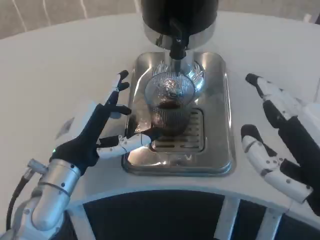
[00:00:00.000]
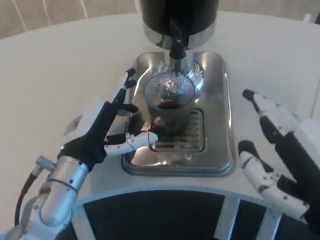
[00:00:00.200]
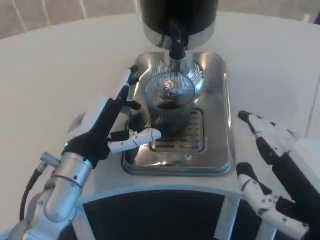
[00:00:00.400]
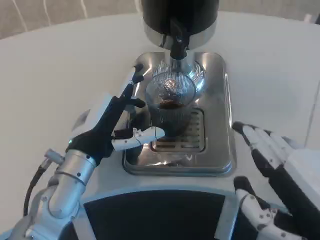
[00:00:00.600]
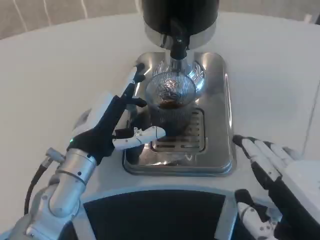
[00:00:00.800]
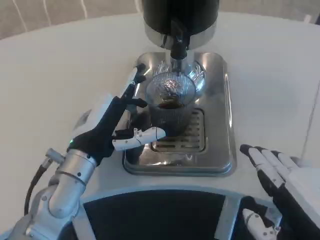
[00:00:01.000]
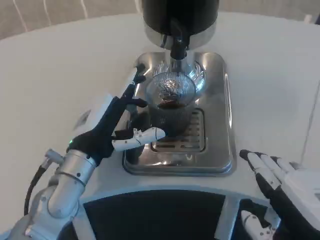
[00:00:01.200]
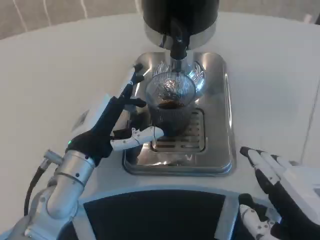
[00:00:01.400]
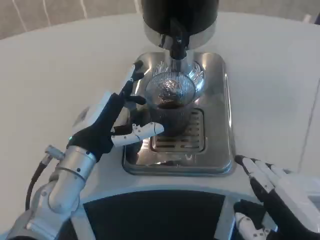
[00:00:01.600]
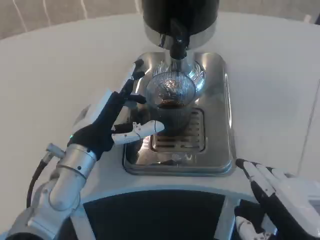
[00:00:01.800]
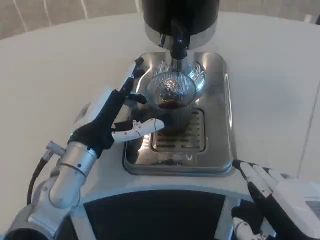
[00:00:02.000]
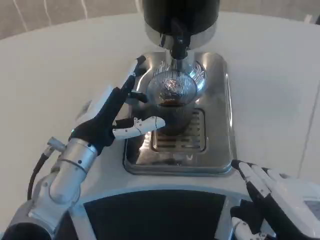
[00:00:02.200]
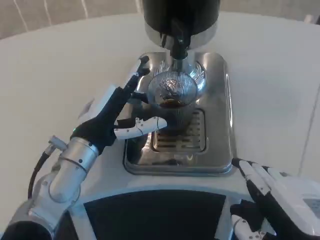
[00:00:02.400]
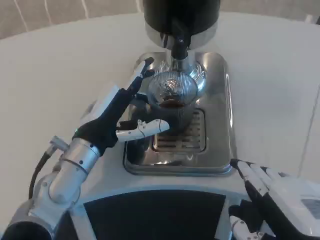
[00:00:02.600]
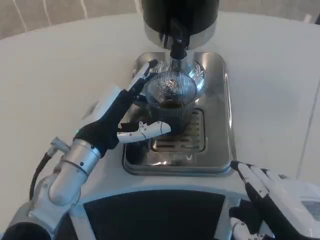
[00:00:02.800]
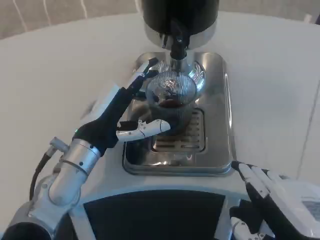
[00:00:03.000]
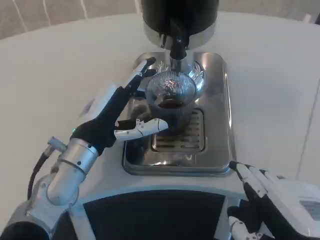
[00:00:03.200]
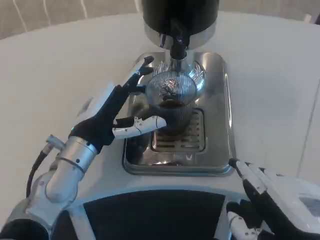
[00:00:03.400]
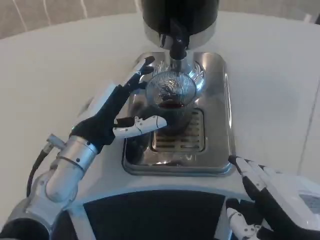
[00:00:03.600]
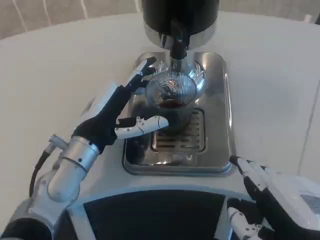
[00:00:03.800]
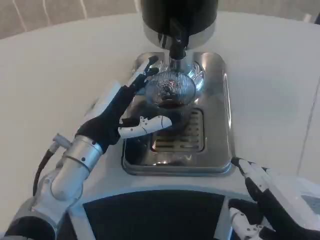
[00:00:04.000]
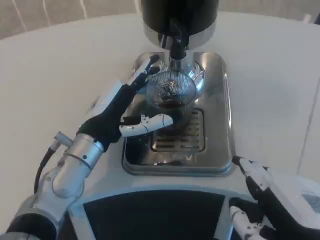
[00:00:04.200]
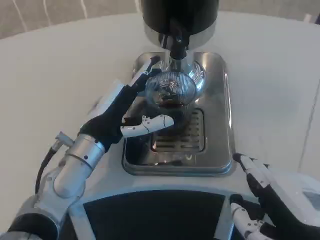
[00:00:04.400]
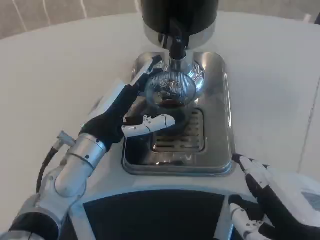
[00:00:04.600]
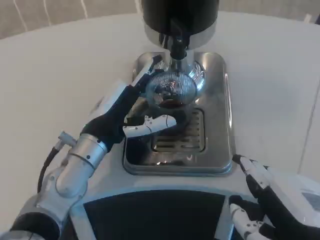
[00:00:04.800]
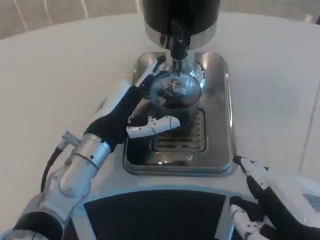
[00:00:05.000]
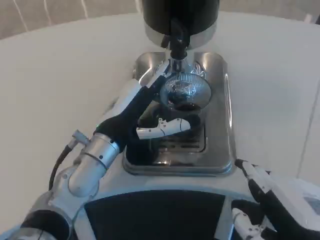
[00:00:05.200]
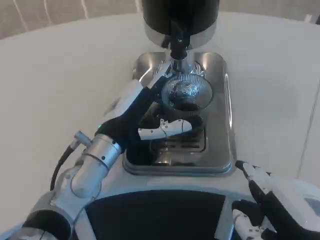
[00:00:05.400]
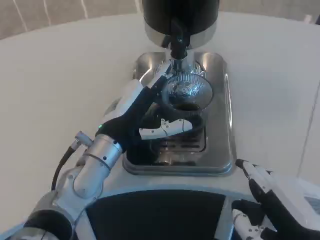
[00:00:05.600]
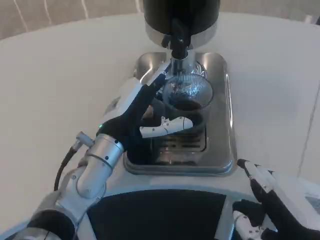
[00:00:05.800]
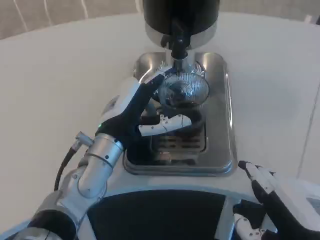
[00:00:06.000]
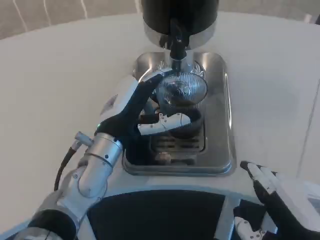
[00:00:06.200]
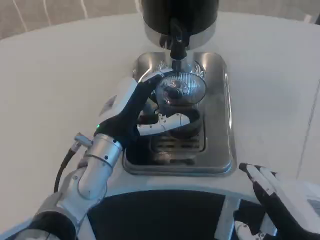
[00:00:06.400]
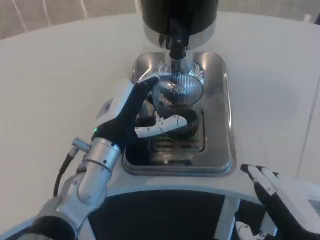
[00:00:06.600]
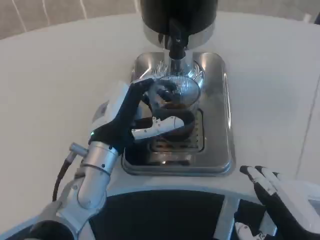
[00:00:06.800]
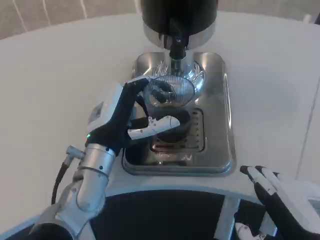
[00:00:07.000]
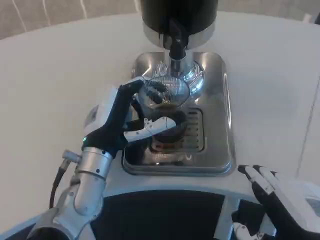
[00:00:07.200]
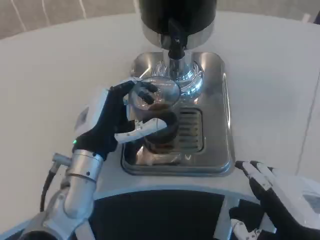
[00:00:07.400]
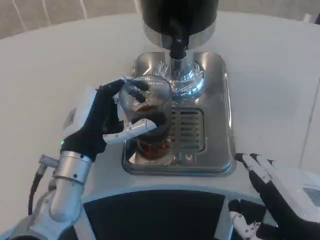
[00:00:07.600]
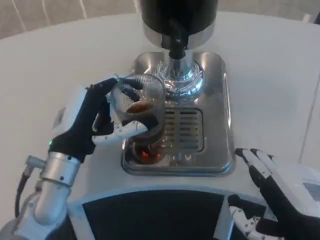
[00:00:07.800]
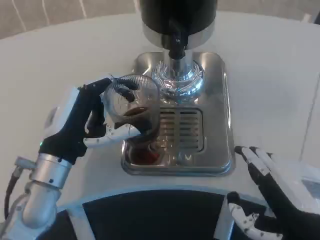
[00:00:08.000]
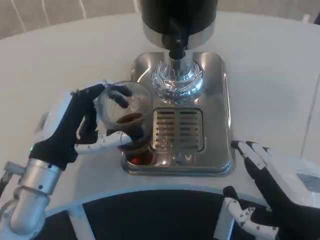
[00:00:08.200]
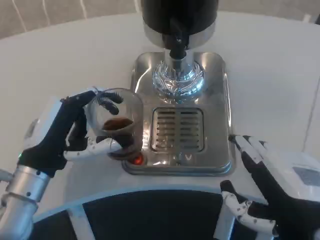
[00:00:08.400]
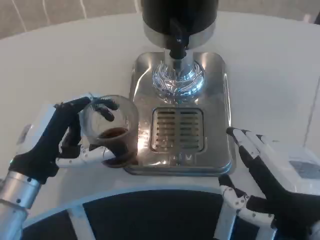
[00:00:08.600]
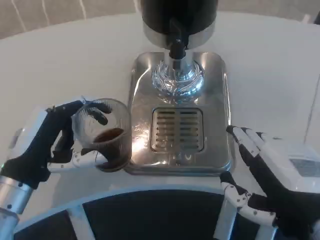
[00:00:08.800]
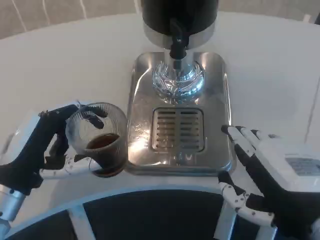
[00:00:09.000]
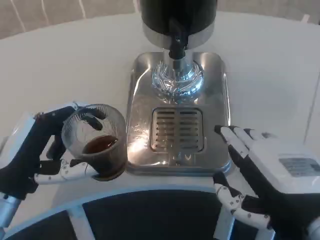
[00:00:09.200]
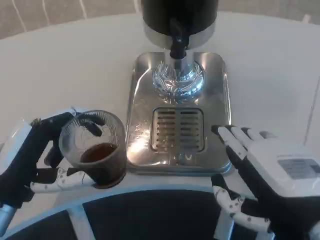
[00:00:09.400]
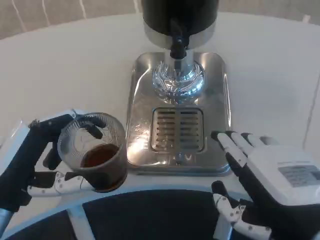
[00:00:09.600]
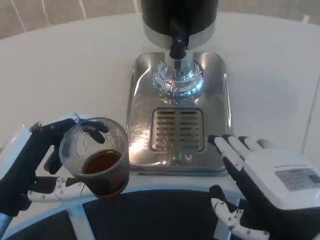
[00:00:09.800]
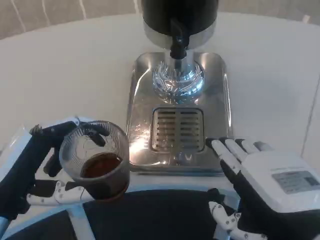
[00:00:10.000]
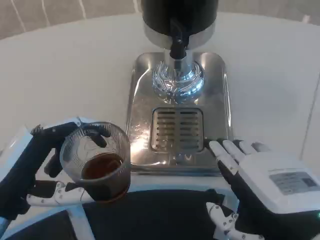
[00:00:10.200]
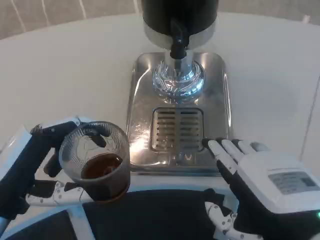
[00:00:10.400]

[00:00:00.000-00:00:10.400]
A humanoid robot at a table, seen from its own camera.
Task of the whole recording: Grasp the cup under the faucet to collect the drink, then remove the cup.
00:00:00.000 to 00:00:01.400: The hands stay close to where they were, moving slightly.
00:00:01.400 to 00:00:03.000: The hands make only small movements.
00:00:03.000 to 00:00:04.400: Neither hand changes place.
00:00:04.400 to 00:00:07.400: The hands stay close to where they were, moving slightly.
00:00:07.400 to 00:00:09.000: The left hand moves to the left and backward, approximately 10 cm.
00:00:09.000 to 00:00:10.400: The hands move only a little.

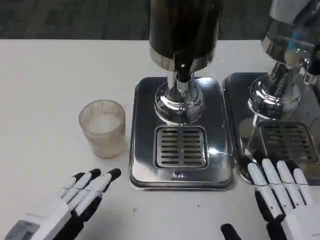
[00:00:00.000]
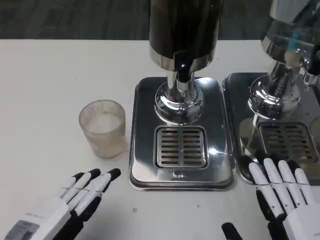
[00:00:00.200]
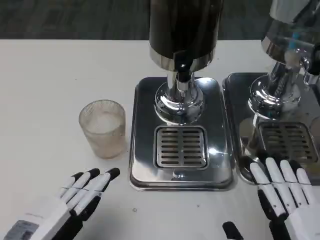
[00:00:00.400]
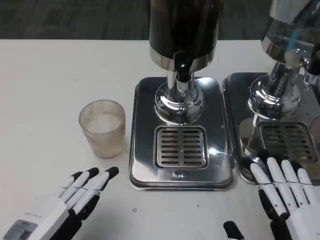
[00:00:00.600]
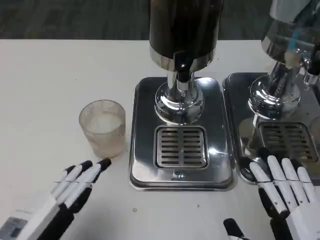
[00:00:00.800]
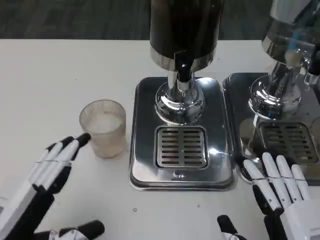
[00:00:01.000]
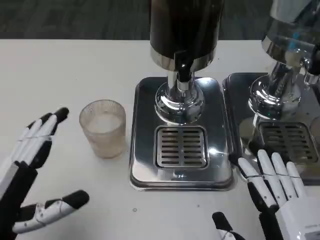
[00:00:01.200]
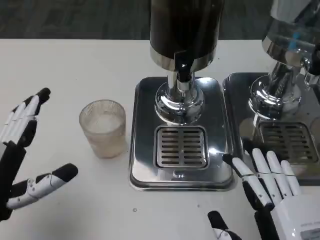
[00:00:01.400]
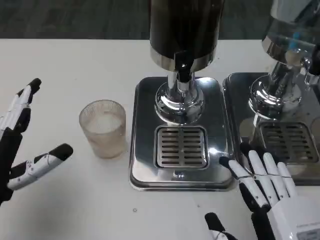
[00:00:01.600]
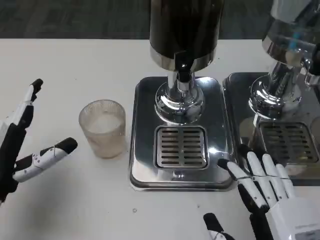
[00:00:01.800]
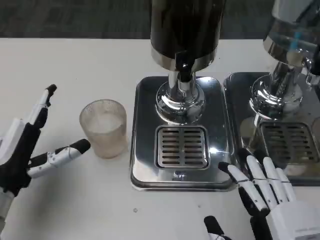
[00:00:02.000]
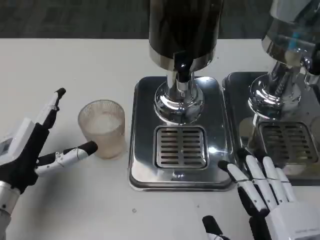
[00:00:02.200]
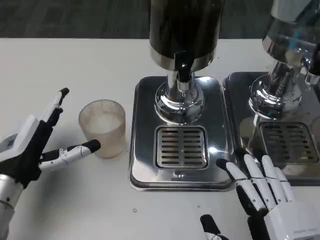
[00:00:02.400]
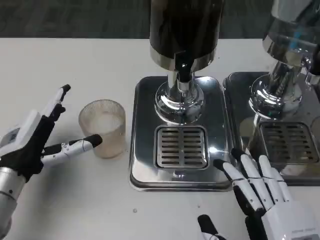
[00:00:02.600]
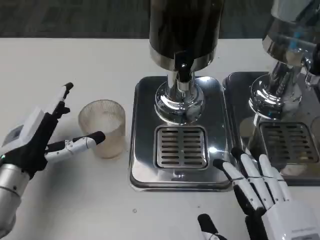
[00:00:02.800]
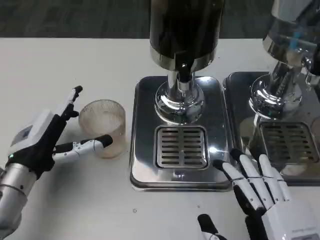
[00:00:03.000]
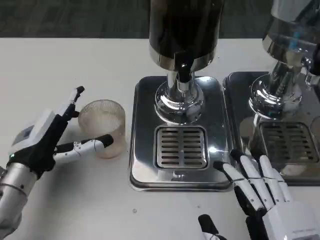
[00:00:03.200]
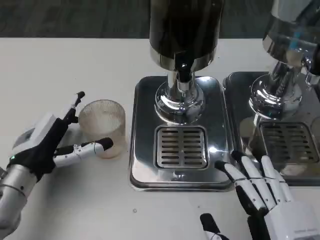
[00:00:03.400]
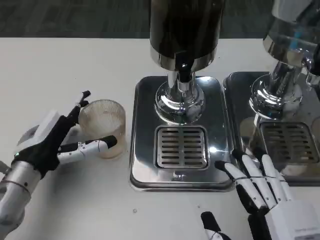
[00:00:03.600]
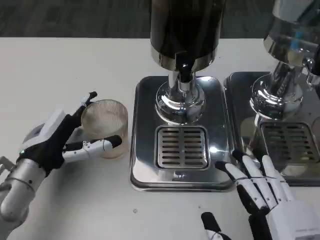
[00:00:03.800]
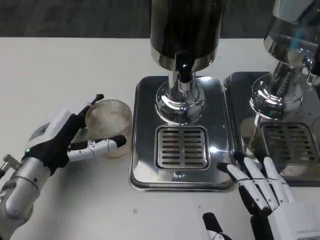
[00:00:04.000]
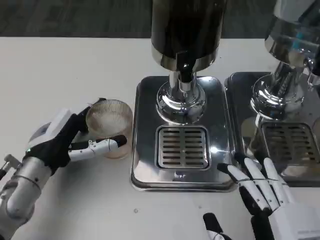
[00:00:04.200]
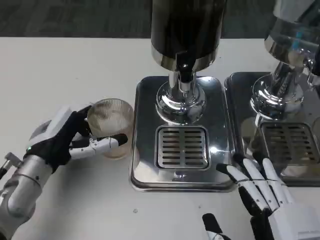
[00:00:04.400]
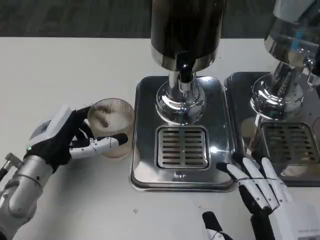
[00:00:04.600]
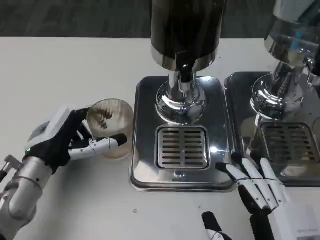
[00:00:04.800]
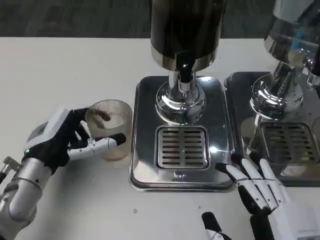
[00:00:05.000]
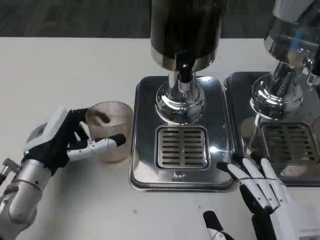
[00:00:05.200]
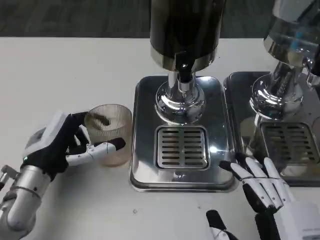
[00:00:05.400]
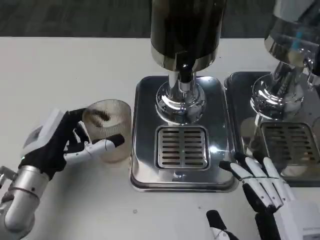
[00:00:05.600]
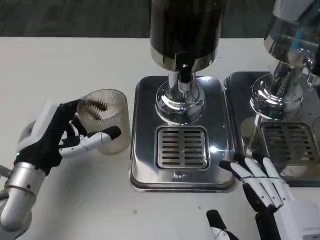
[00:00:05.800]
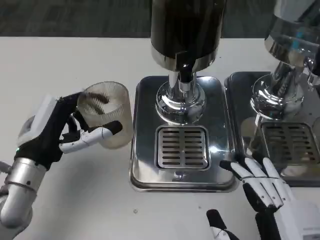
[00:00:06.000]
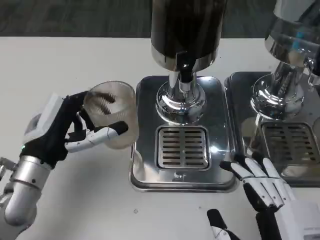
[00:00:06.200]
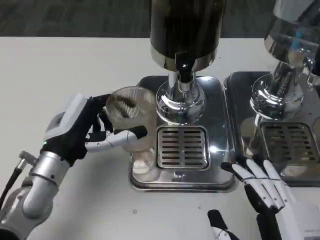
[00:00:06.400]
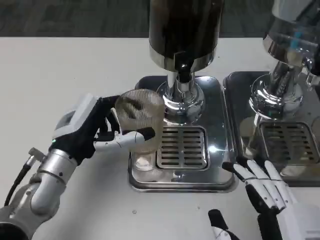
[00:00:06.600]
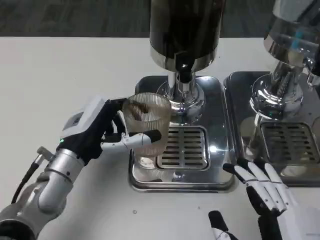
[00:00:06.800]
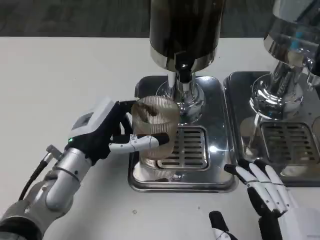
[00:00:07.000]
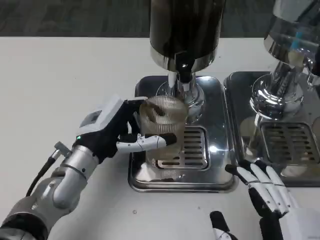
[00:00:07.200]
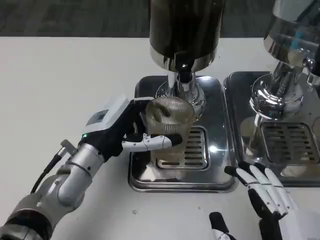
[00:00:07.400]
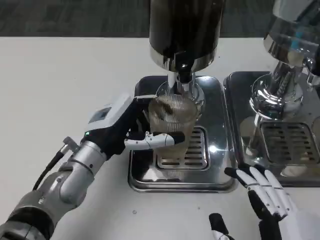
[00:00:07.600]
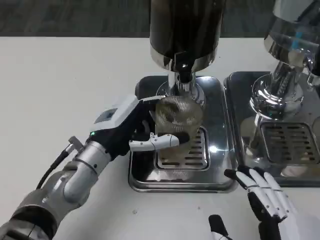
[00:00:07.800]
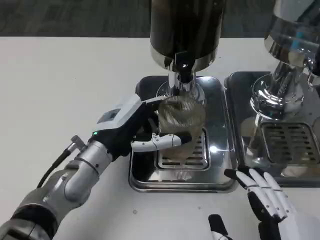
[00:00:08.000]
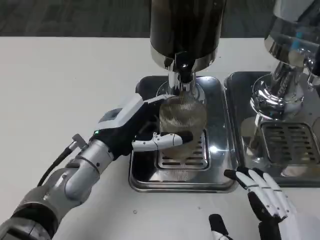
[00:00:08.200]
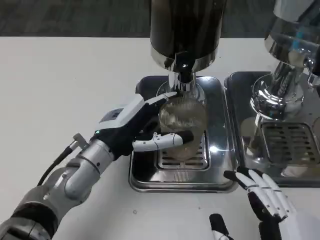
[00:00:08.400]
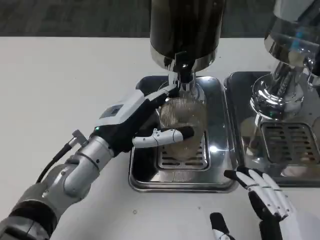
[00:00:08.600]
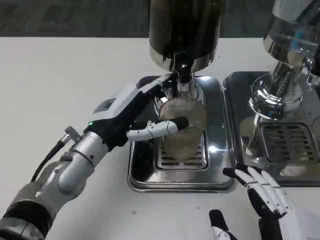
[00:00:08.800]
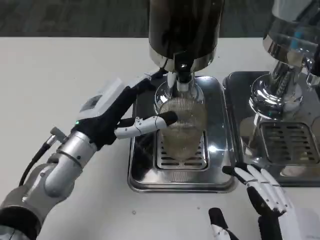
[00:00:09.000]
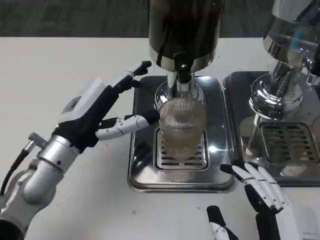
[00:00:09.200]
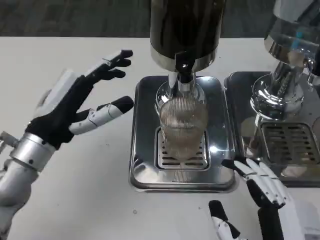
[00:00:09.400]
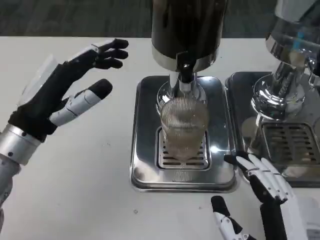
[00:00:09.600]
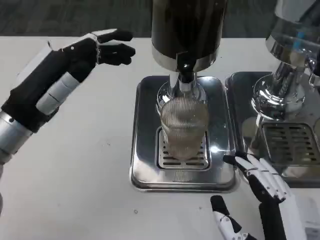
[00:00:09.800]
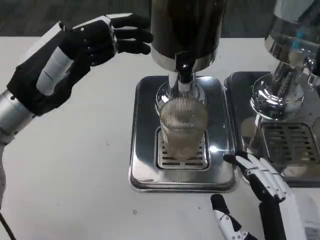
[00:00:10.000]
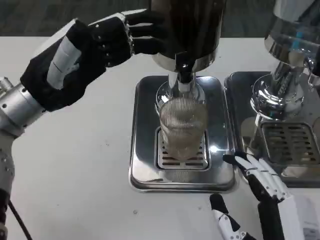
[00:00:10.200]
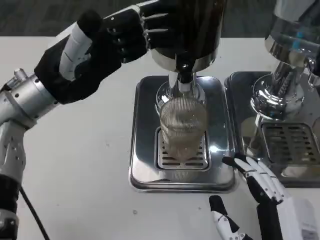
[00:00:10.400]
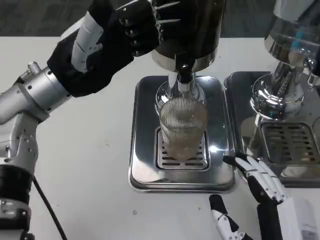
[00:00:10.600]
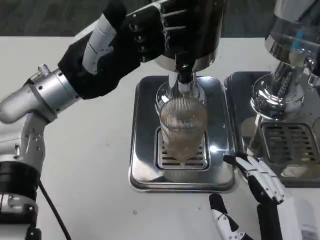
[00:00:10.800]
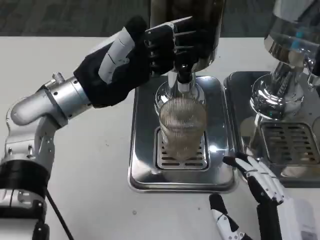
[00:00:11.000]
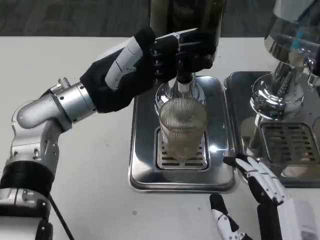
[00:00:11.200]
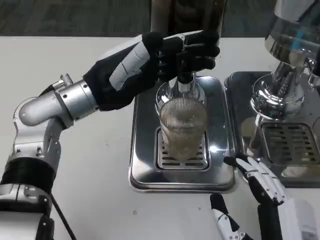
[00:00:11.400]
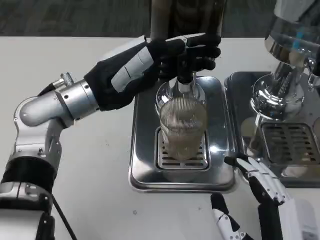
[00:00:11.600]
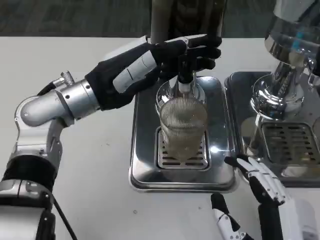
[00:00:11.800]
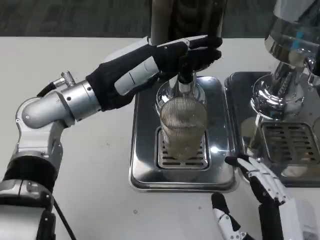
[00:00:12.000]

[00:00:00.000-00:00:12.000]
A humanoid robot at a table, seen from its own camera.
Task of the whole recording: Grasp the cup under the faucet to collect the drink, then remove the cup.
00:00:00.000 to 00:00:01.600: The left hand heads forward, covering about 10 cm.
00:00:01.600 to 00:00:03.000: The left hand moves forward, some 5 cm.
00:00:03.000 to 00:00:06.000: There are only small adjustments of the hands.
00:00:06.000 to 00:00:07.600: The left hand goes approximately 5 cm to the right.
00:00:07.600 to 00:00:09.000: The hands move only a little.
00:00:09.000 to 00:00:10.400: The left hand heads upward, covering about 10 cm.
00:00:10.400 to 00:00:12.000: The left hand changes place by approximately 5 cm.
